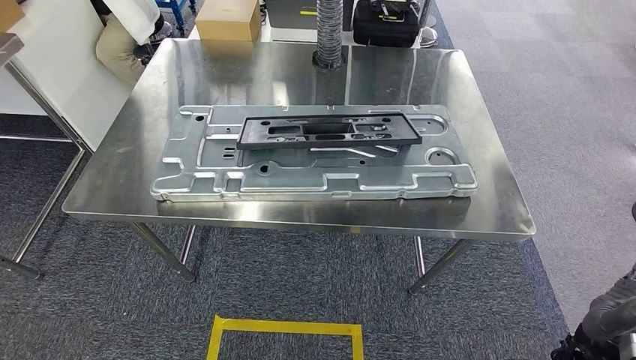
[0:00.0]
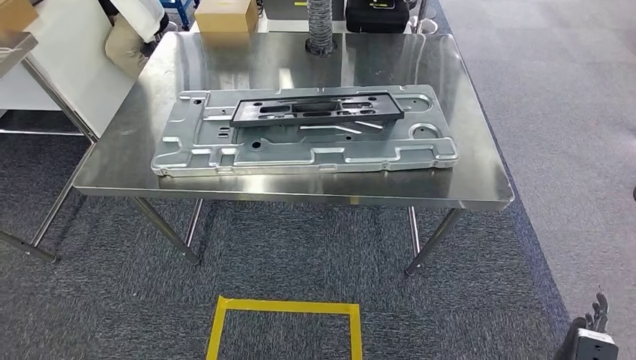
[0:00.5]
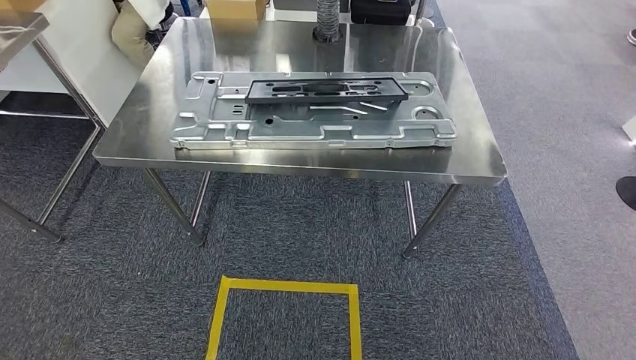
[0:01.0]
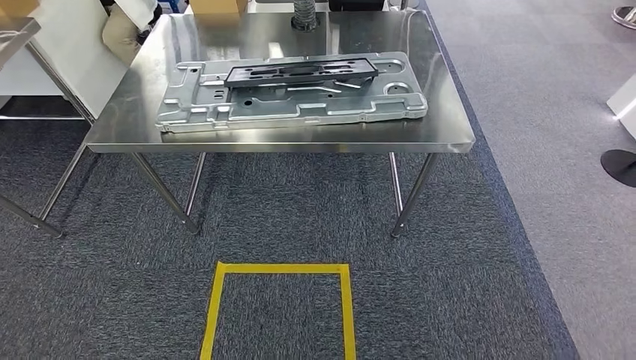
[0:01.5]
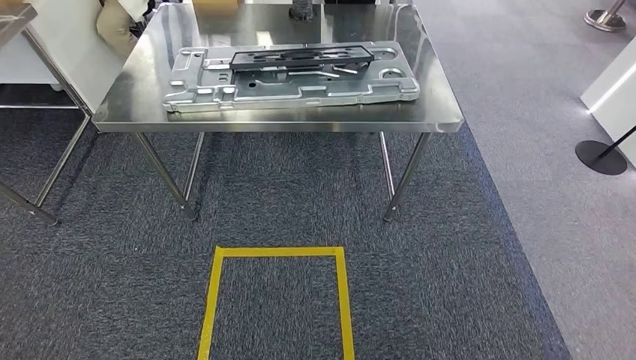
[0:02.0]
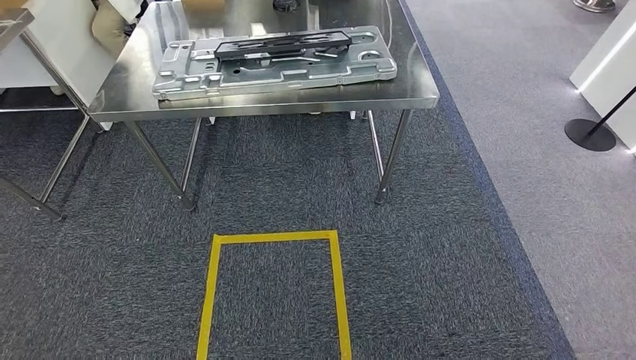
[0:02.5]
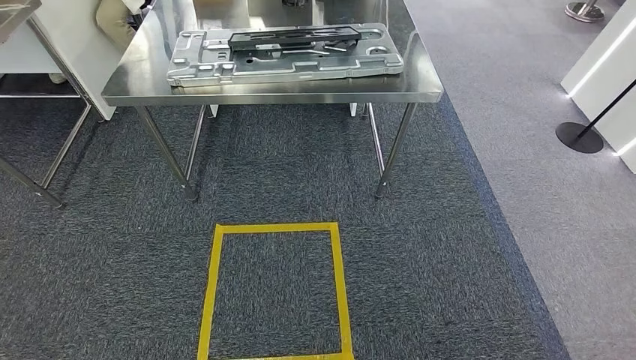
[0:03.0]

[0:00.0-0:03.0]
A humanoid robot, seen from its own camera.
Step, 0:00.0 to 0:03.0: Move to the initial position of the workbench.
